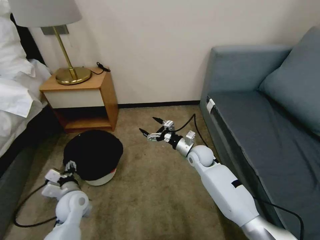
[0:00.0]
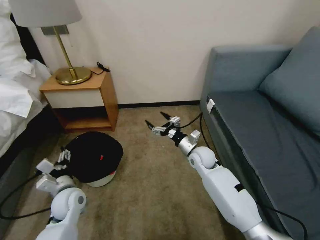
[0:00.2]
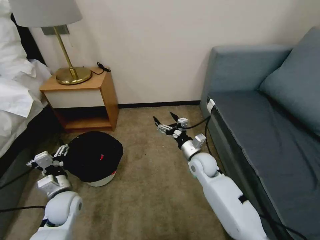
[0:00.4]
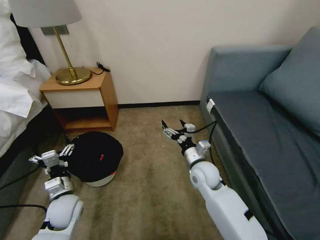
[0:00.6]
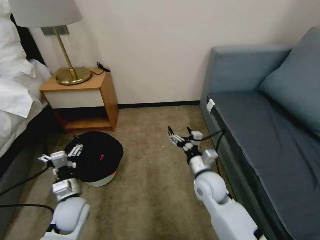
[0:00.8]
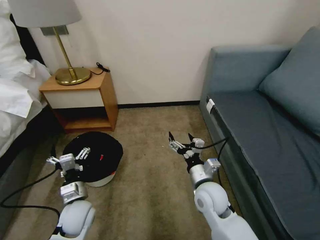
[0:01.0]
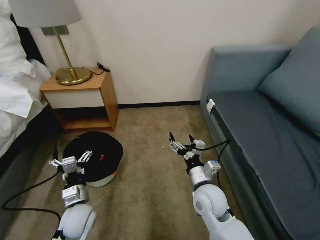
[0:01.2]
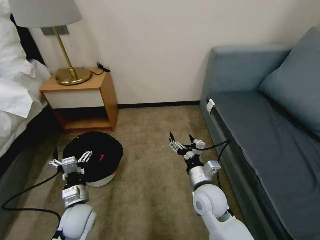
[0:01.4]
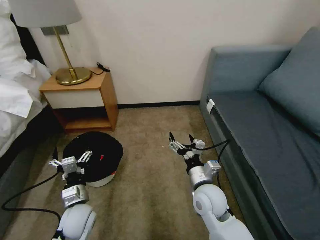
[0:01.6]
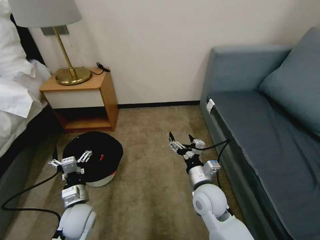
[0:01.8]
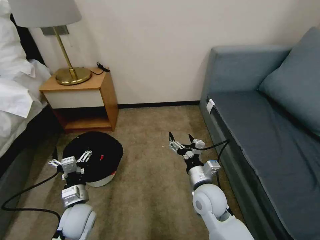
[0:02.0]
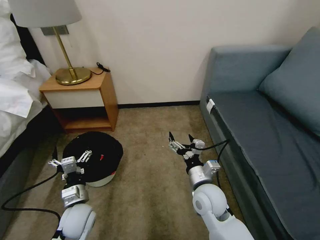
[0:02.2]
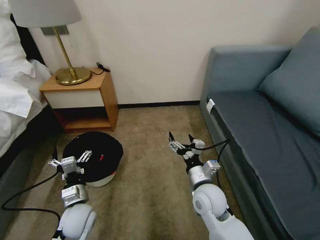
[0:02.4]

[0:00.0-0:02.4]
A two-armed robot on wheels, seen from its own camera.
Task of the whole recording: Pick up the trash bin, then pick up the garbage on the floor and place it into the trash bin.
0:00.0 to 0:01.2: The left gripper moves roughly 5 cm, while the right gripper goes about 20 cm backward.
0:01.2 to 0:02.4: Neither gripper changes place.

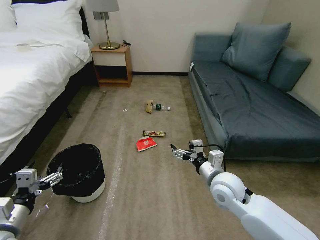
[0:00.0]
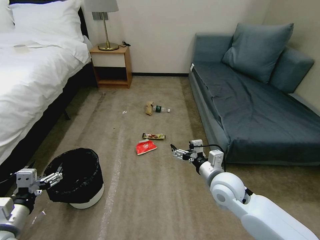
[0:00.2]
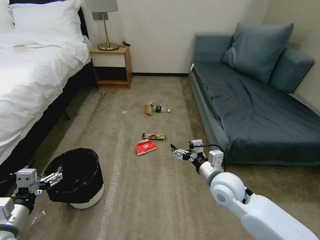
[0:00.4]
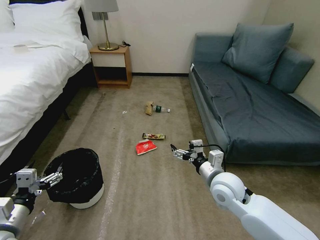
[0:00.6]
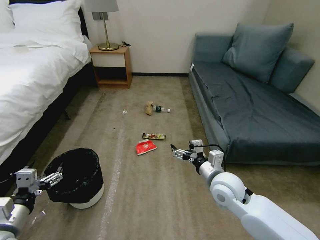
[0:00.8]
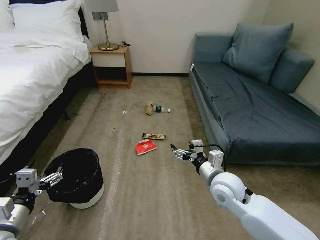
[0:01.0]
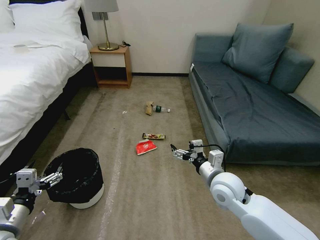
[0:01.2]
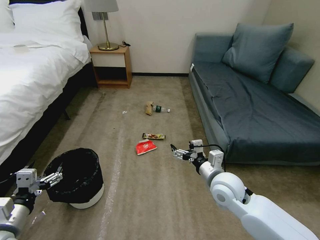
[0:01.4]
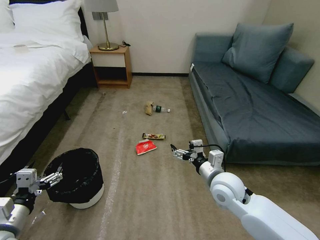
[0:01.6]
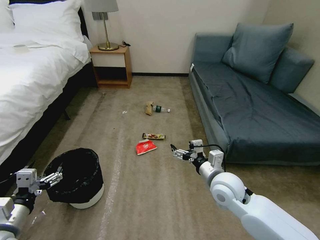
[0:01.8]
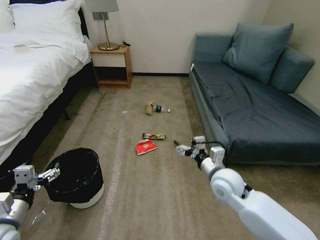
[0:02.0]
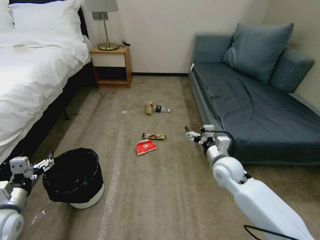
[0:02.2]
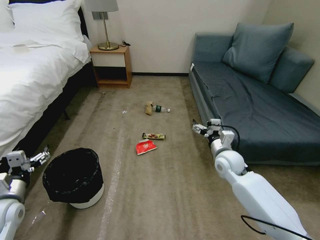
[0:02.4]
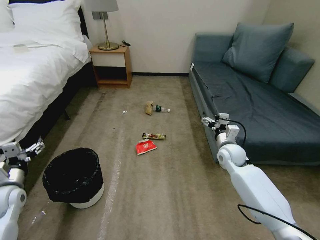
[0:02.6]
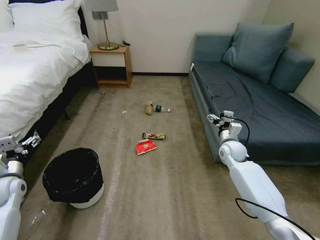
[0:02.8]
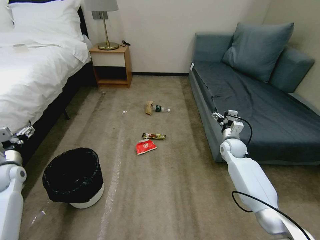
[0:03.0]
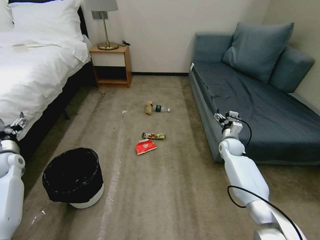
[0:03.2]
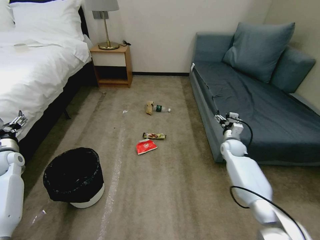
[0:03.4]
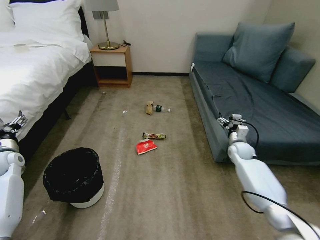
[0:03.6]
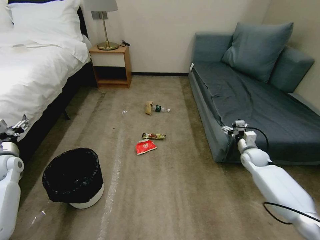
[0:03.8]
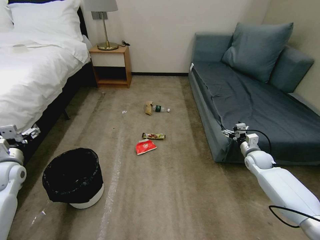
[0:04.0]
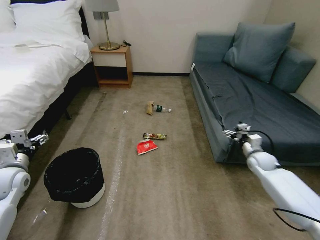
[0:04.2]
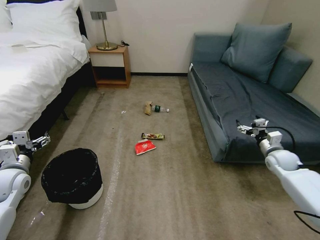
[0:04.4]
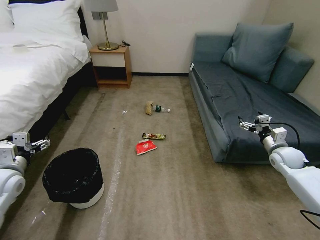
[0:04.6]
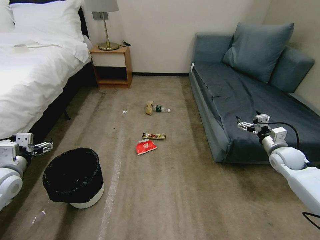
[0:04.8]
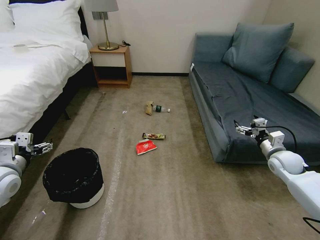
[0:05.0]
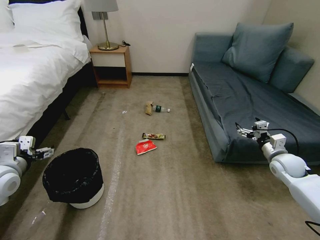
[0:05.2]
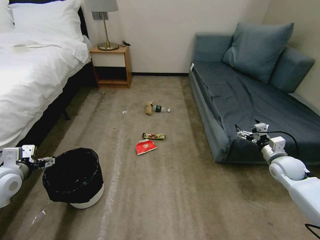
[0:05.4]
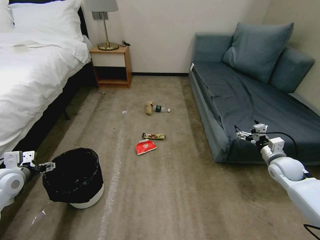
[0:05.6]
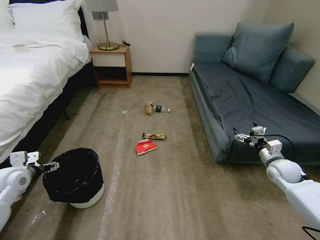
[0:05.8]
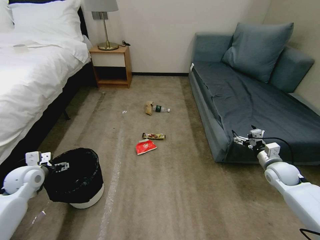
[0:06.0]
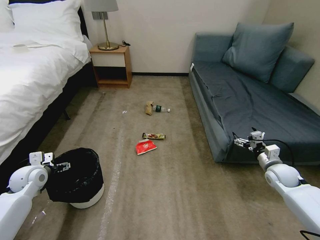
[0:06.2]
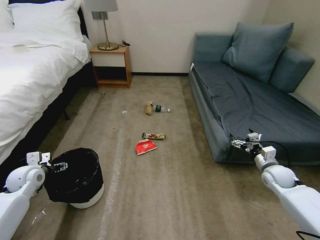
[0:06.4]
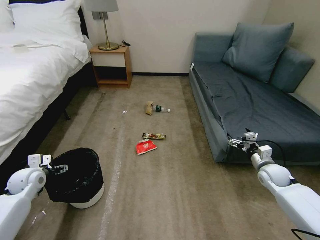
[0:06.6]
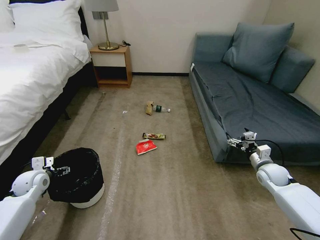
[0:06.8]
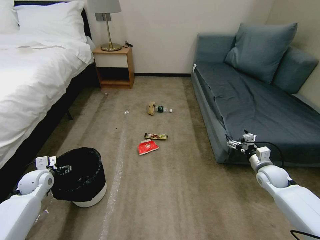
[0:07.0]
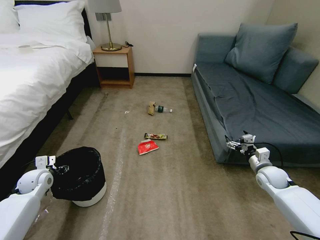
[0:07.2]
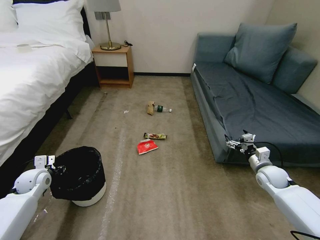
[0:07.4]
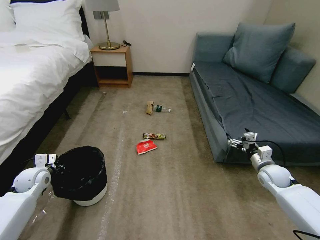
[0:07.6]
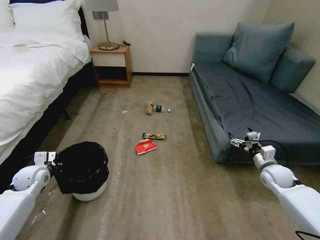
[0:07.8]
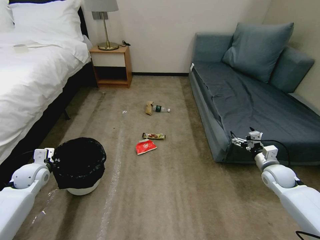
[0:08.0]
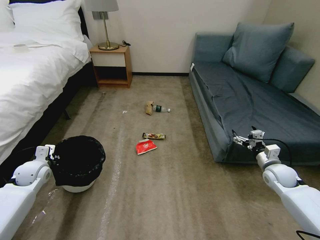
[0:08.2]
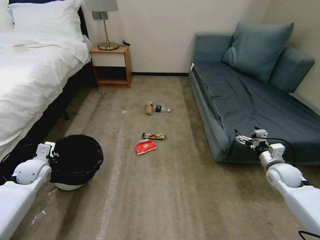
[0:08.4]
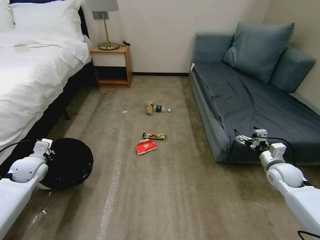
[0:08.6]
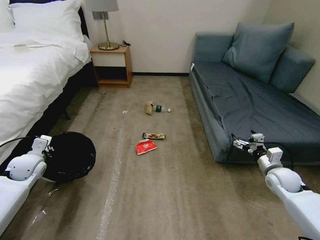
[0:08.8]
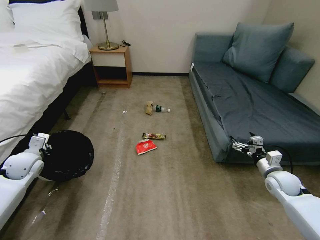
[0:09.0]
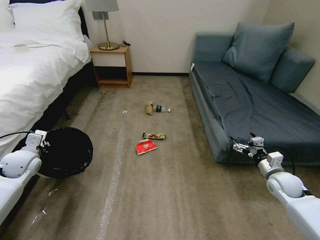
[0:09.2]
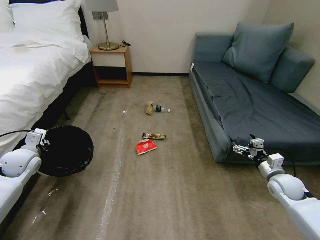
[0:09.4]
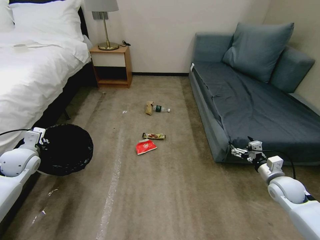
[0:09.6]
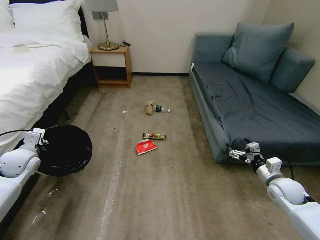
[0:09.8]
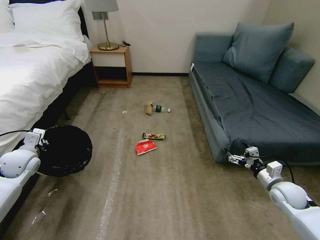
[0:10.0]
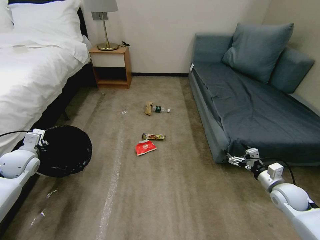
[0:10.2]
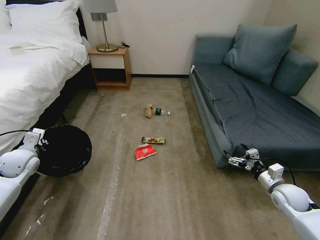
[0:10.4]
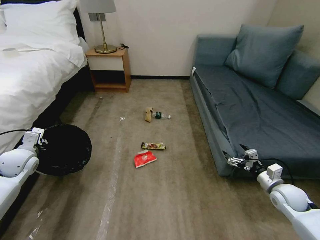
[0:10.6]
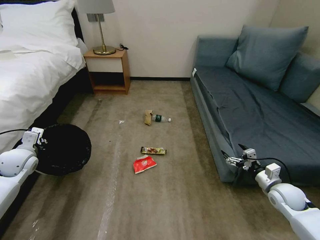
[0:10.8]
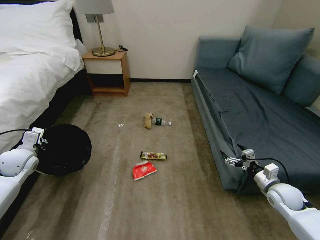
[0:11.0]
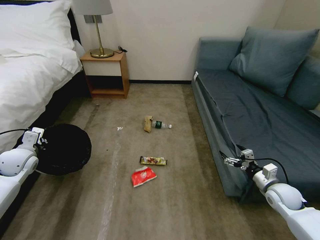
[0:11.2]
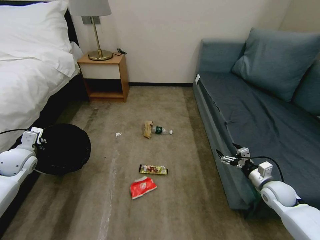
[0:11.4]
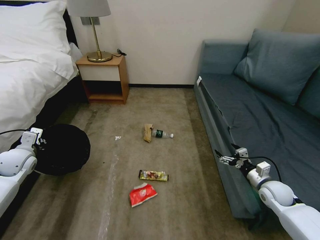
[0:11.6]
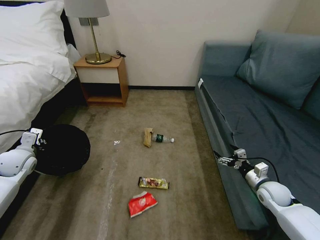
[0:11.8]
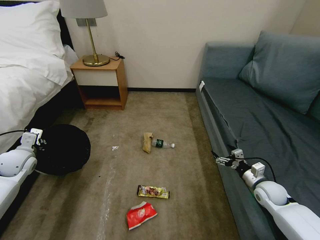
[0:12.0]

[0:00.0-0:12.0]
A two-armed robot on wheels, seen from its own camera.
Task of the whole recording: Pick up the trash bin, then pick up the garbage on the floor and place it into the trash bin.
0:01.6 to 0:03.0: The right gripper moves forward and to the right, approximately 25 cm. The left gripper goes roughly 25 cm forward and to the left.
0:03.0 to 0:04.4: The right gripper travels to the right and backward by roughly 20 cm. The left gripper travels to the right by about 5 cm.
0:04.4 to 0:06.0: The right gripper shifts by roughly 5 cm.
0:06.0 to 0:07.6: The left gripper moves downward, approximately 5 cm, and closes up.
0:07.6 to 0:09.0: The left gripper travels upward by approximately 5 cm.
0:09.0 to 0:10.4: The grippers stay close to where they were, moving slightly.
0:10.4 to 0:12.0: The right gripper shifts by approximately 5 cm.

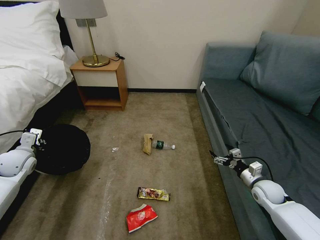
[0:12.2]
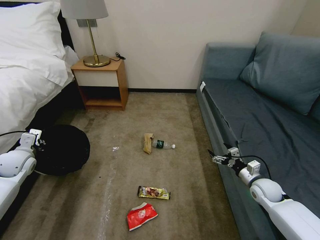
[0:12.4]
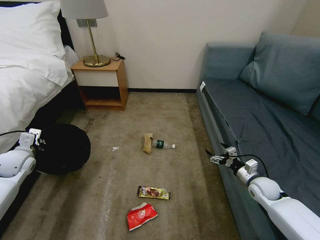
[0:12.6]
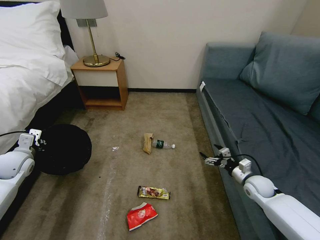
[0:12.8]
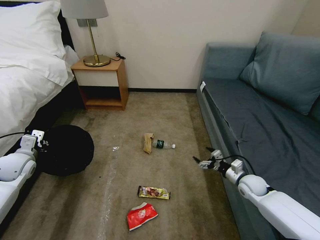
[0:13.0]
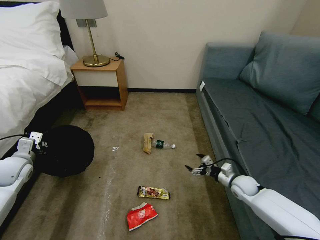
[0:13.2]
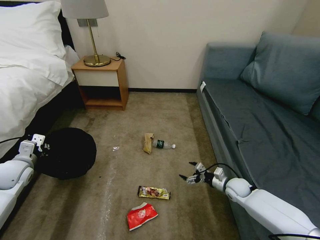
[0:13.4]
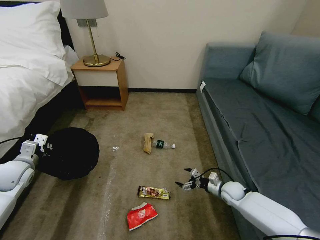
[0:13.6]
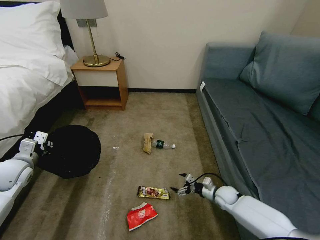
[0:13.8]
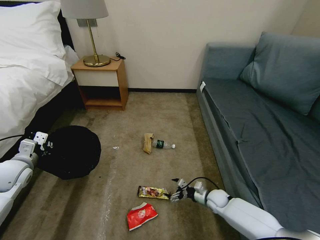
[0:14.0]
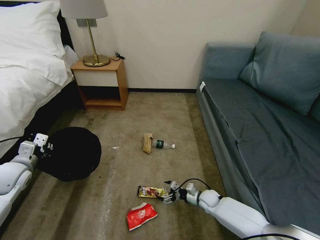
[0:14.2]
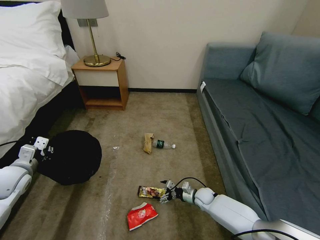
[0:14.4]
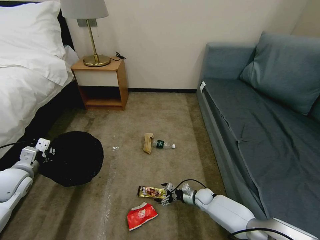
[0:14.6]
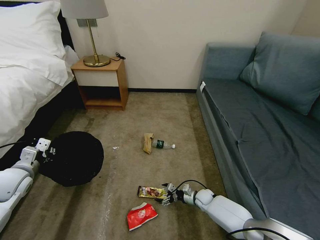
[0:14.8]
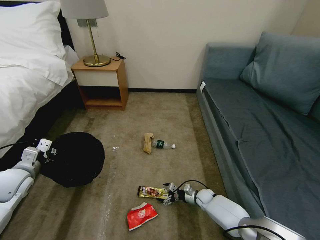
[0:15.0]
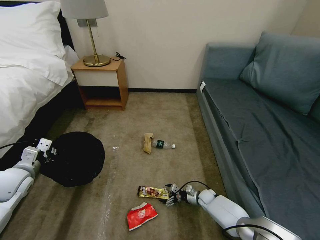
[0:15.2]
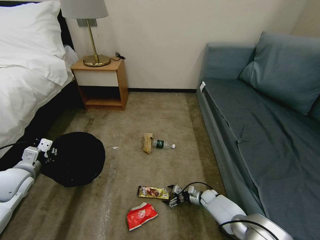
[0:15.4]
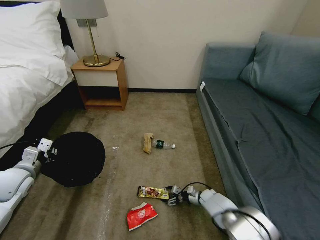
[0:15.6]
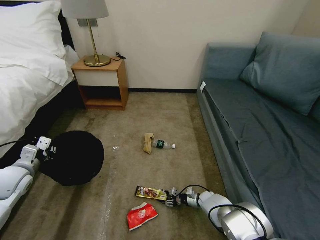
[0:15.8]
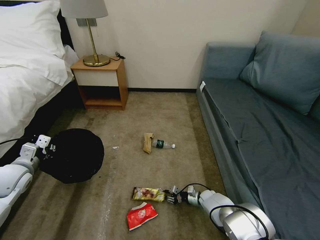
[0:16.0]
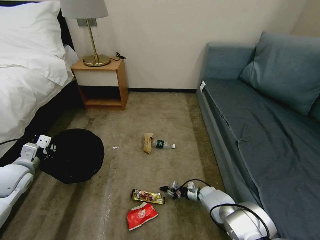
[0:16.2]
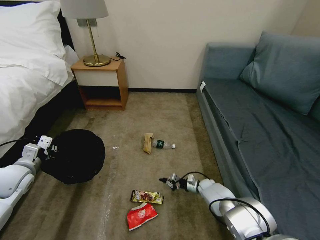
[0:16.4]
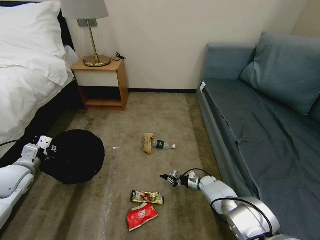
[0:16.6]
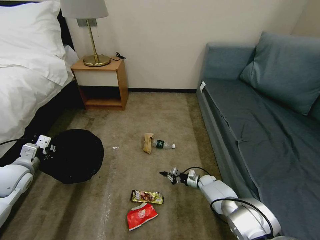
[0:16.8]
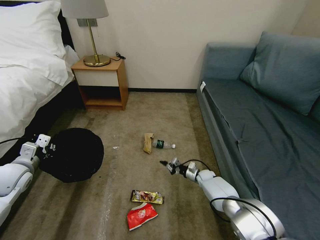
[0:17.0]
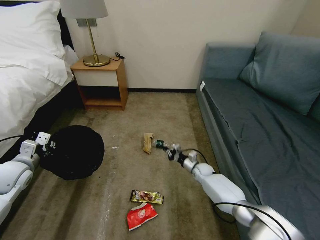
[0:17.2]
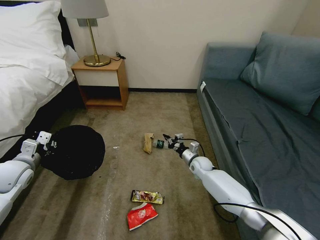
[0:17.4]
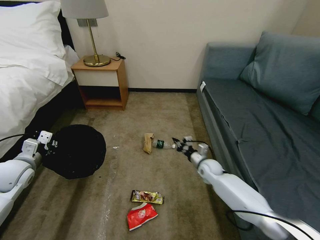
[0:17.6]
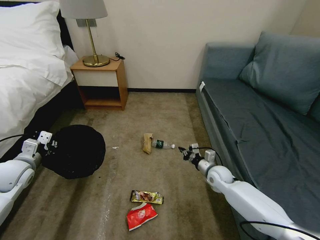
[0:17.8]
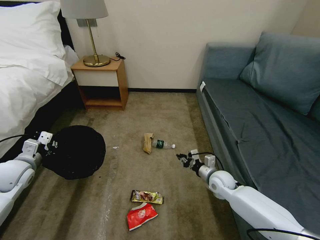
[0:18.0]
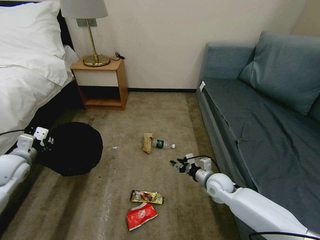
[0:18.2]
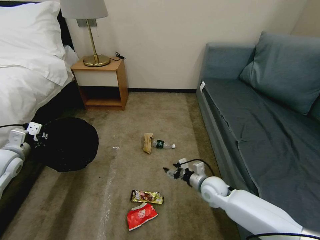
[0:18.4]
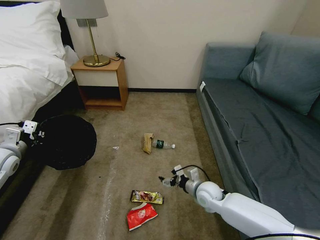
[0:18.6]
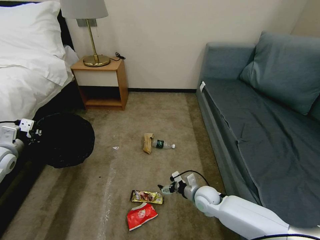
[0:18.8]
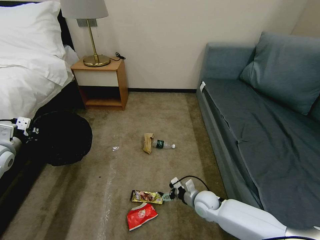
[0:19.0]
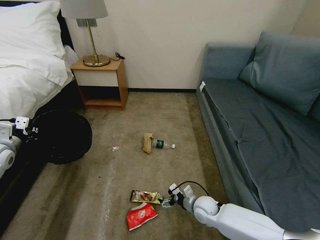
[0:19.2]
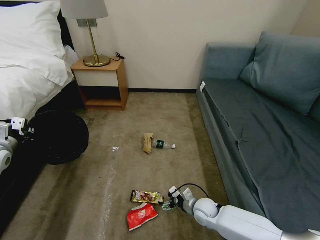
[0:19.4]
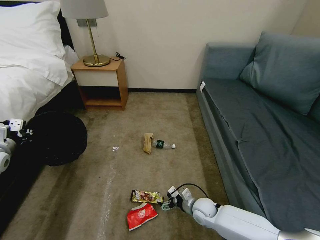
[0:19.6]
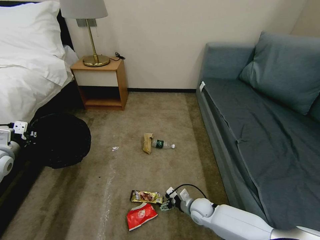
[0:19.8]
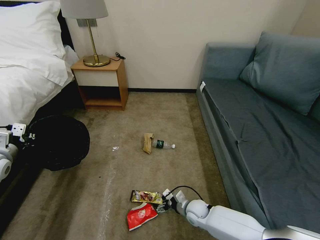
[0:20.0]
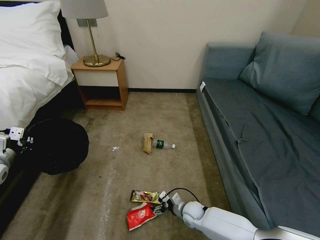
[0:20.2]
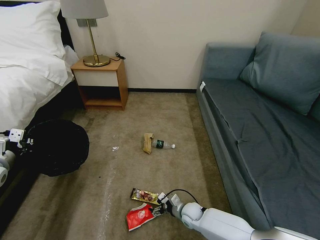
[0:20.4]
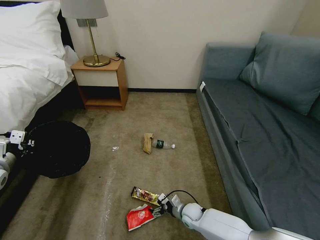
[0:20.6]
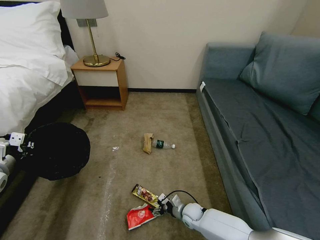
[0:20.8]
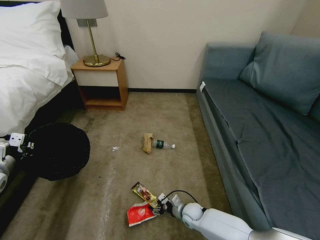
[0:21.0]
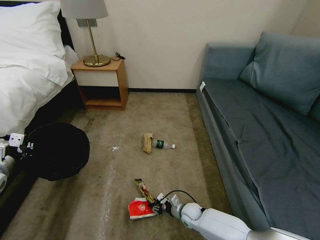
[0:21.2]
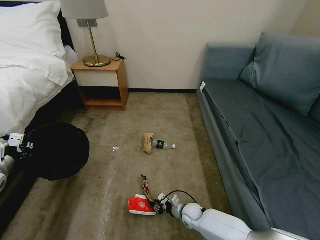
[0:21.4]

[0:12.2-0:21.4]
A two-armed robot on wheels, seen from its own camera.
Task of the whole recording: Pick up the trash bin, then pick up the garbage on the floor and place it into the trash bin.
0:12.2 to 0:13.8: The right gripper shifts roughly 15 cm downward and to the left.
0:13.8 to 0:15.2: The right gripper shifts some 10 cm downward and to the left.
0:15.2 to 0:16.8: The right gripper goes about 5 cm forward, and closes its fingers.
0:16.8 to 0:18.4: The left gripper shifts by approximately 5 cm, while the right gripper travels upward and backward by about 20 cm, and opens its fingers.
0:18.4 to 0:19.8: The right gripper is displaced downward by about 10 cm.
0:19.8 to 0:21.4: The right gripper travels downward by roughly 5 cm, and closes its fingers, while the left gripper moves about 5 cm.
